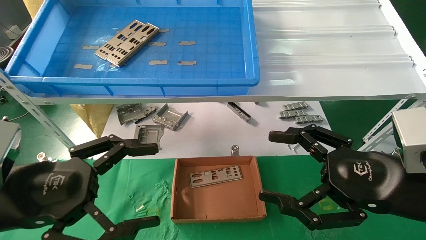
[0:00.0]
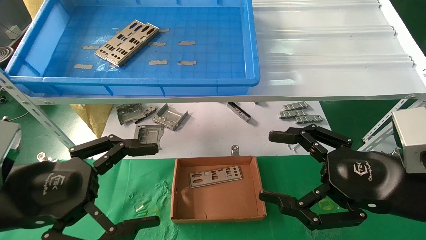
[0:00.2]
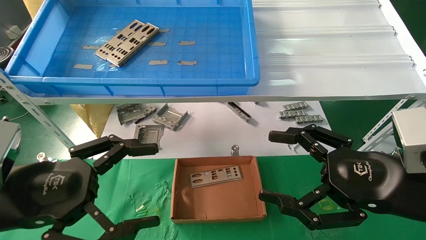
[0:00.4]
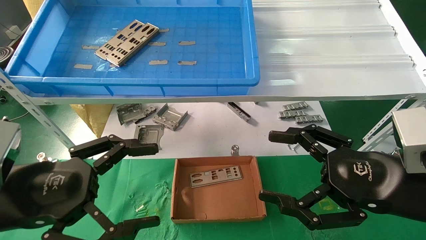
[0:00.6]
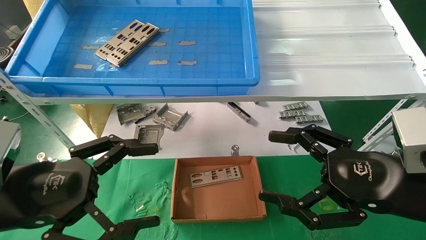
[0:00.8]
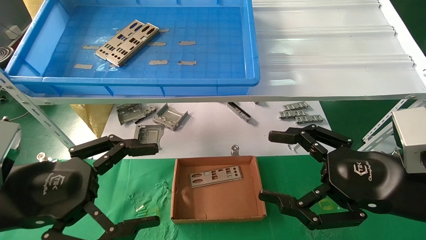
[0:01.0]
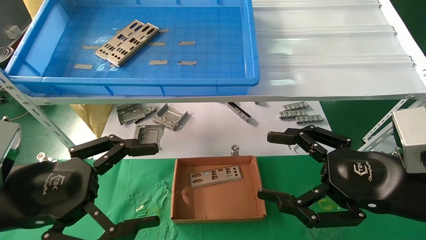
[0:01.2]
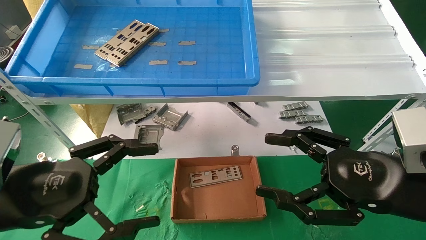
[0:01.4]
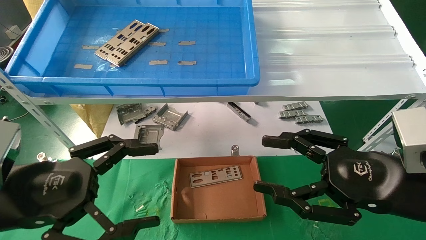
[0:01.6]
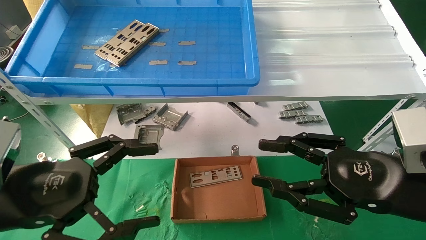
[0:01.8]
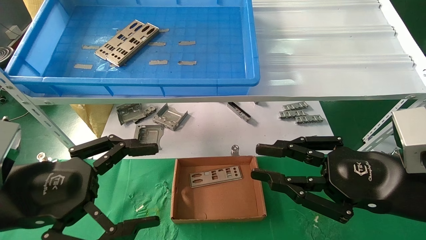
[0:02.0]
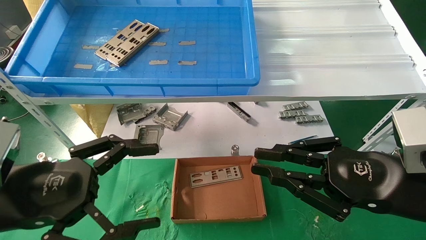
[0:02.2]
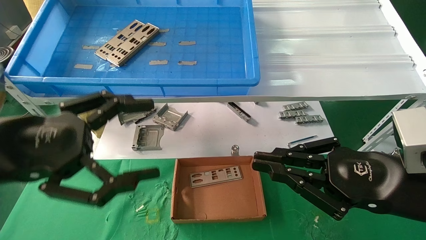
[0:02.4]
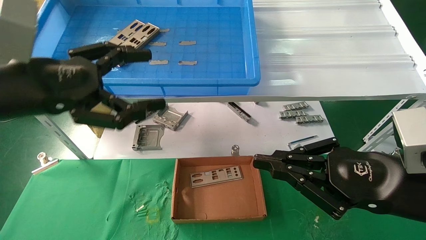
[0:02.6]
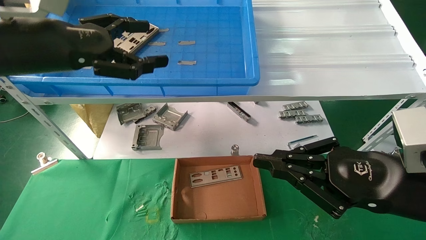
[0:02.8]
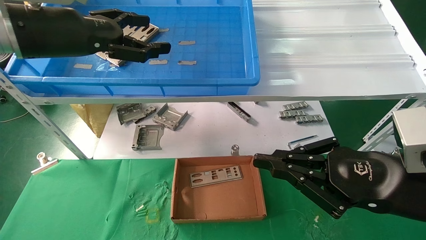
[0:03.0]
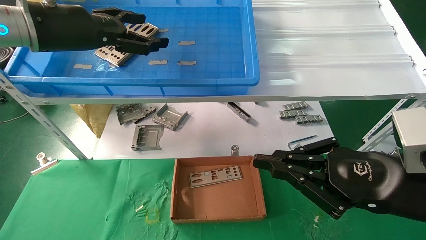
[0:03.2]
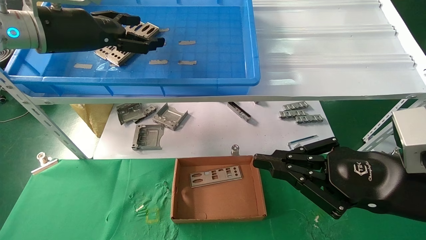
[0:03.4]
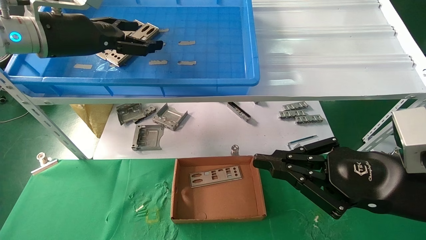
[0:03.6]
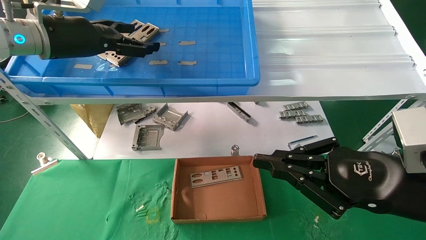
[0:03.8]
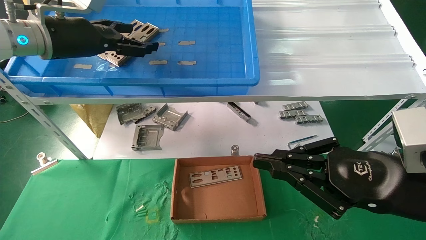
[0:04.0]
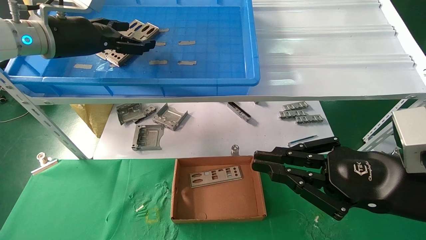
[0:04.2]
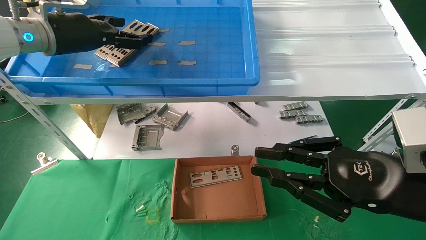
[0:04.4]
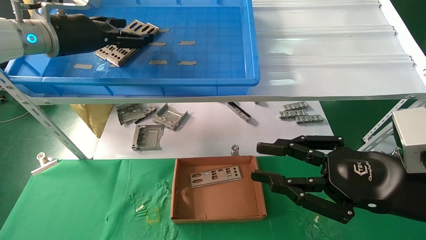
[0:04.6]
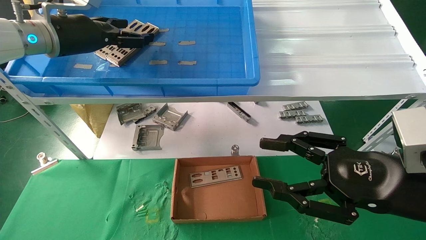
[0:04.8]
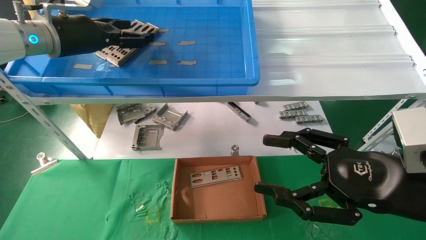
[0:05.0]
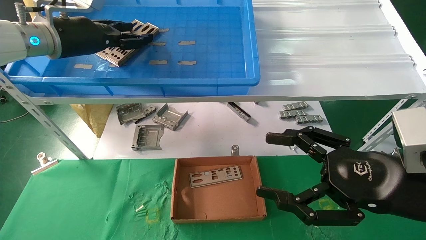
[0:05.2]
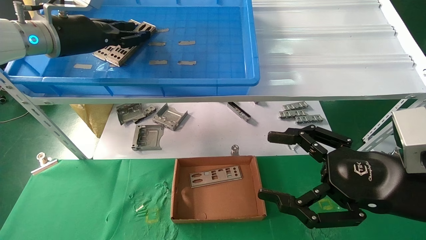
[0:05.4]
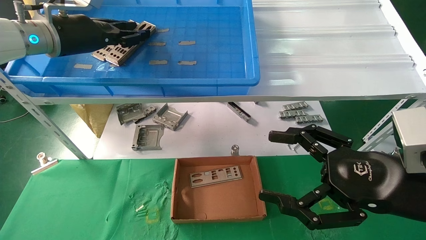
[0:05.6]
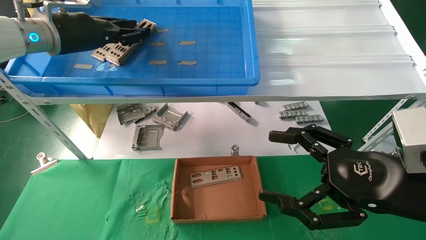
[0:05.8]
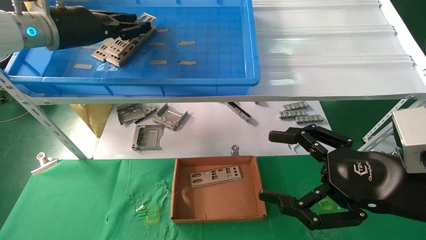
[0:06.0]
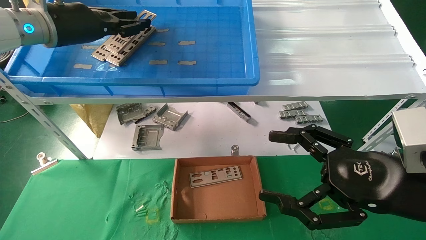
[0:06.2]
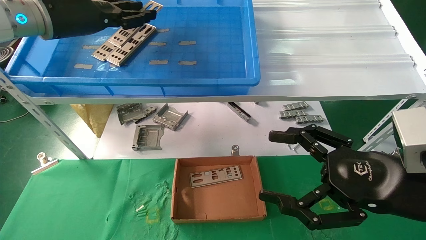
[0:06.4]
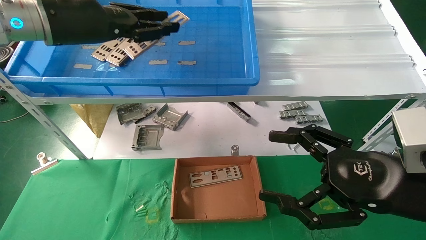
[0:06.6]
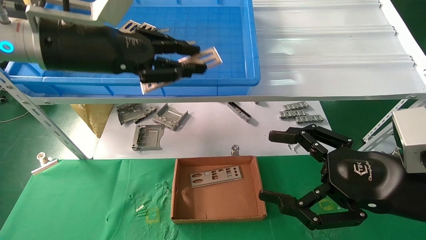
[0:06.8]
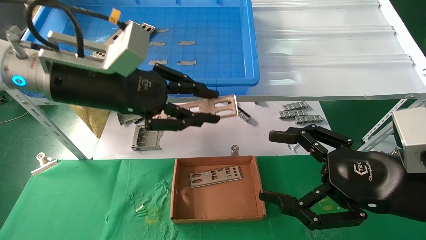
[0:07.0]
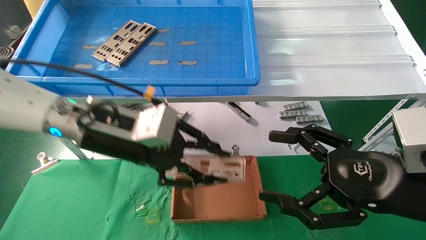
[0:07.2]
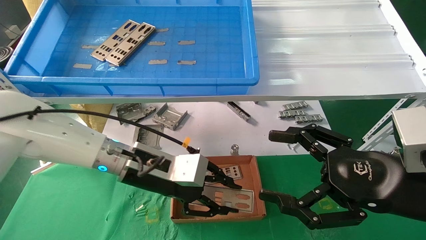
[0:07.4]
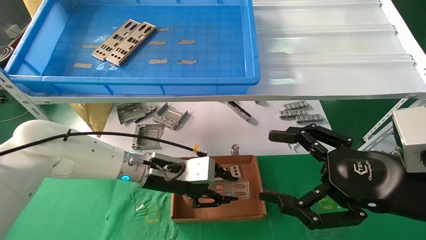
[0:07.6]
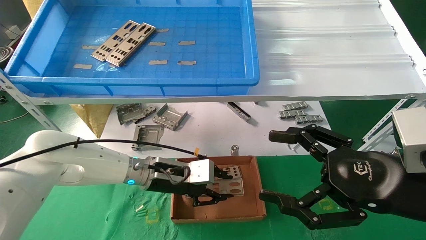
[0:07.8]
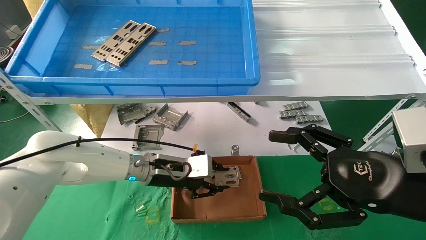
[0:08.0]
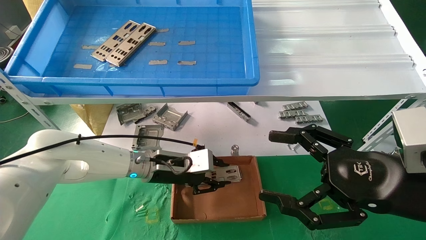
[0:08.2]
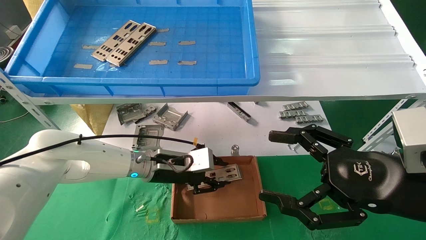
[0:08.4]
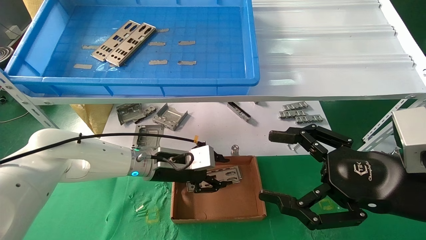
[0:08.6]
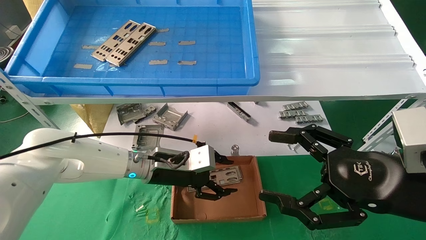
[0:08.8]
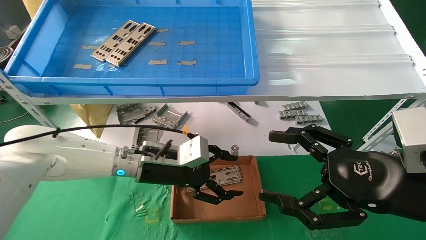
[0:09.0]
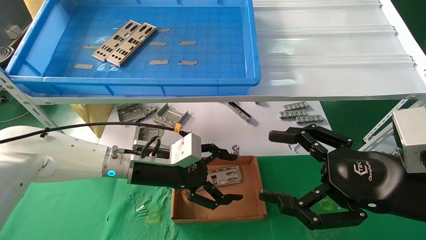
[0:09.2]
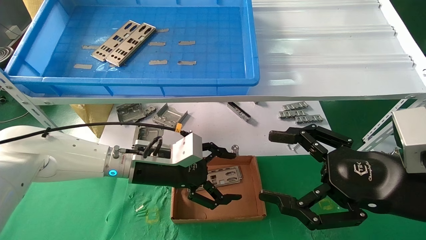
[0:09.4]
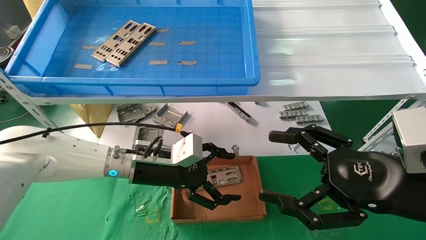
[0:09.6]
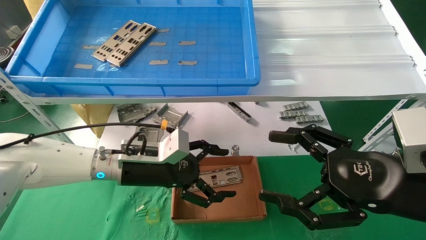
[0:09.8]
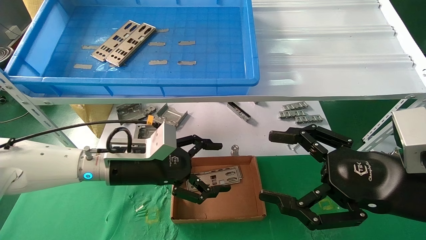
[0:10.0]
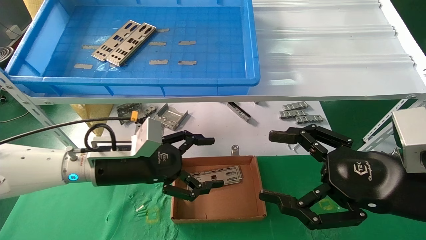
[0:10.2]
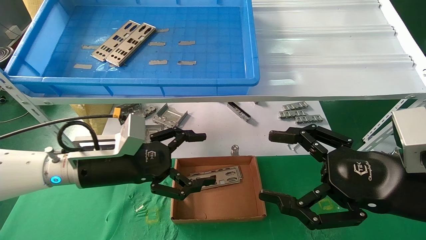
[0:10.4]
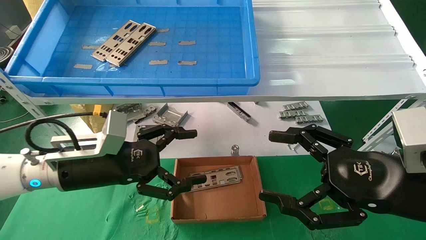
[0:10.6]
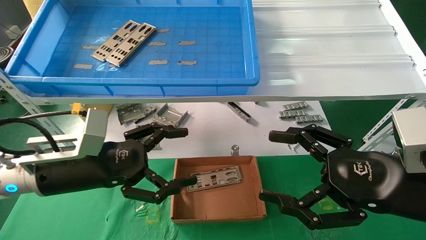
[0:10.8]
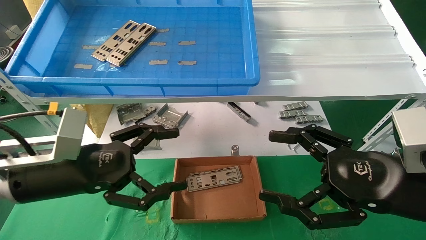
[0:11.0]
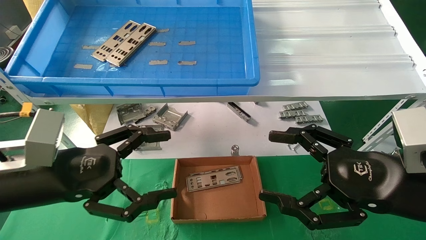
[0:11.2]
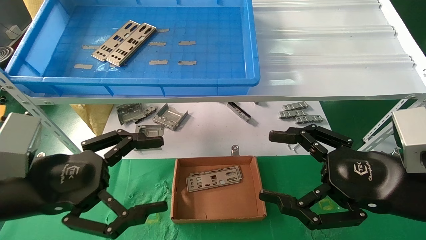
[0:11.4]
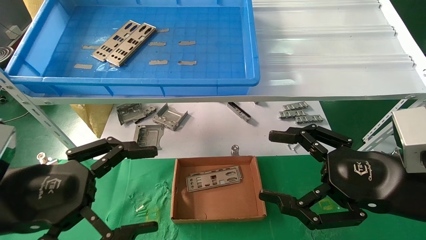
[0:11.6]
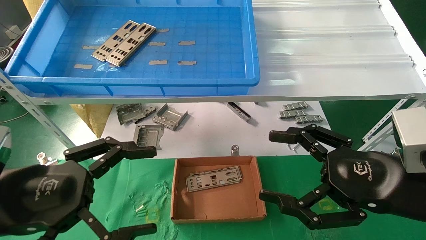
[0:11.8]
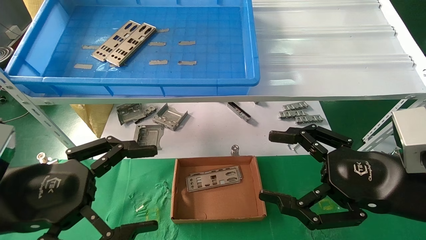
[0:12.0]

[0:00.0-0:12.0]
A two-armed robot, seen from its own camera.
Task of the whole recording: pick up the parts on the tray and put them in the cardboard box.
Step, 0:02.6 to 0:06.0: Pick up the IO bracket from the container box.
Step, 0:06.2 to 0:08.4: Place the IO bracket into the ingredient slot.
0:00.0 to 0:01.6: Neither gripper changes place.
0:01.6 to 0:03.0: The left gripper shifts about 25 cm upward and forward. Meanwhile the right gripper closes its fingers.
0:03.0 to 0:04.4: The left gripper is displaced forward by some 10 cm.
0:04.4 to 0:06.0: The left gripper closes its fingers, while the right gripper opens its fingers.
0:06.0 to 0:07.6: The left gripper heads downward and to the right, covering roughly 30 cm.
0:07.6 to 0:09.0: The left gripper opens.
0:09.0 to 0:10.4: The left gripper moves to the left and backward, roughly 10 cm, and opens up.
0:10.4 to 0:12.0: The left gripper is displaced backward and to the left by roughly 15 cm.

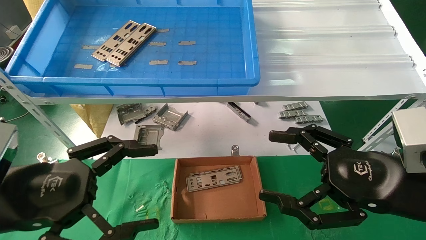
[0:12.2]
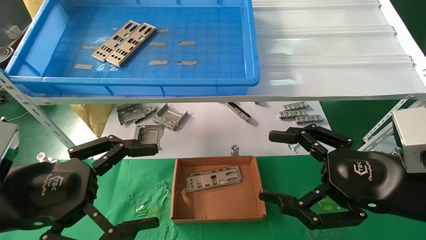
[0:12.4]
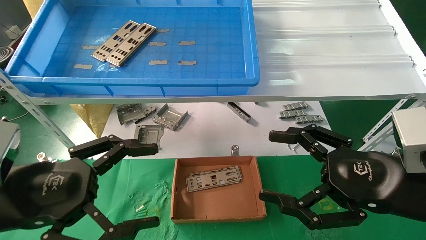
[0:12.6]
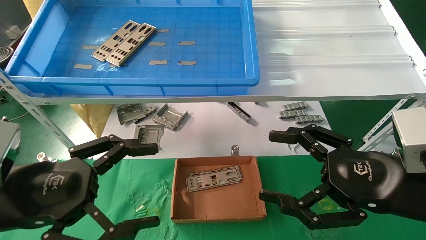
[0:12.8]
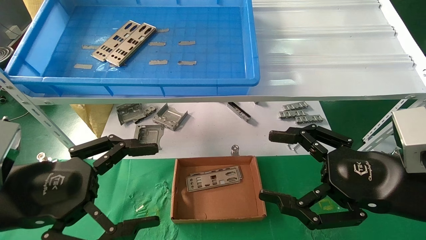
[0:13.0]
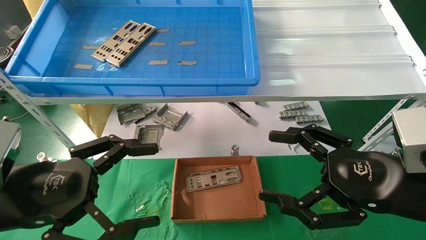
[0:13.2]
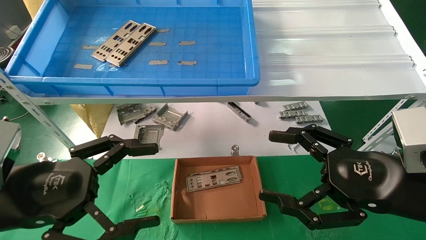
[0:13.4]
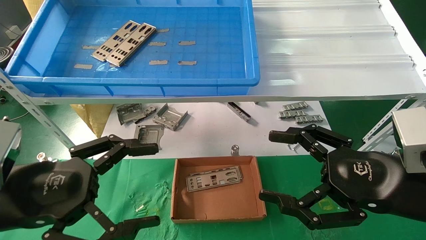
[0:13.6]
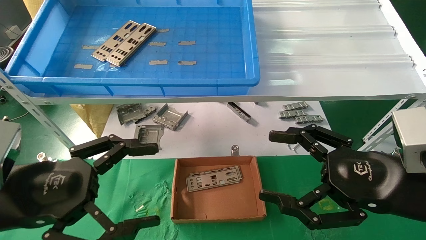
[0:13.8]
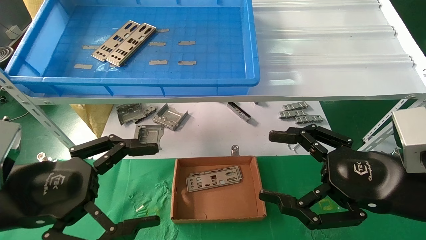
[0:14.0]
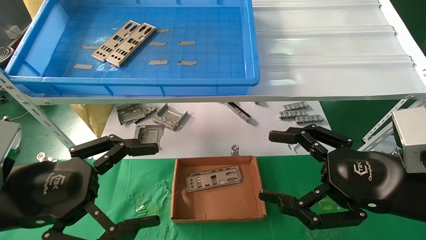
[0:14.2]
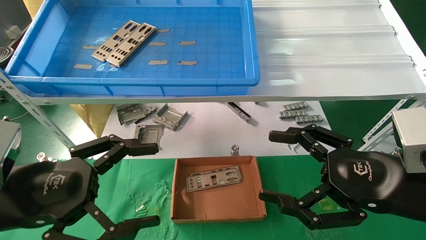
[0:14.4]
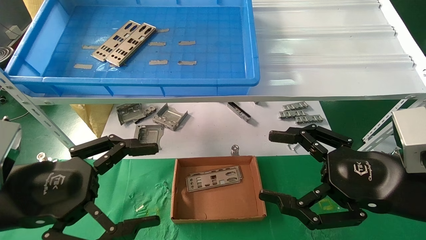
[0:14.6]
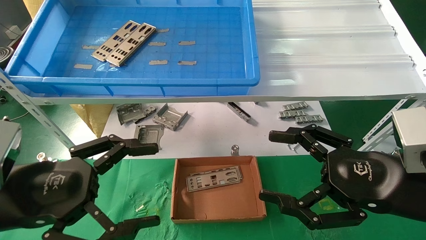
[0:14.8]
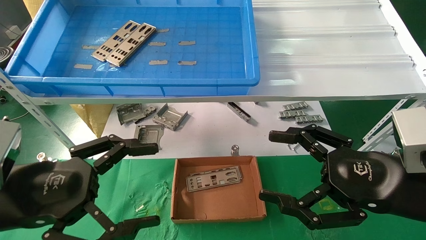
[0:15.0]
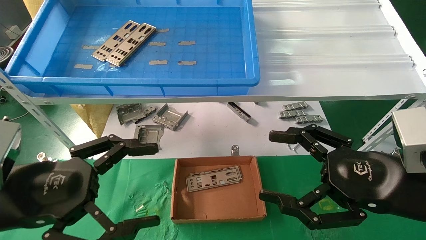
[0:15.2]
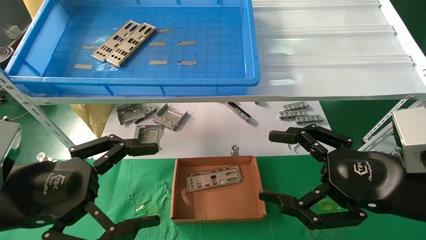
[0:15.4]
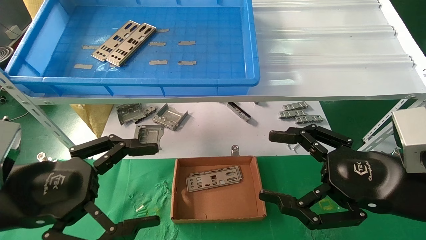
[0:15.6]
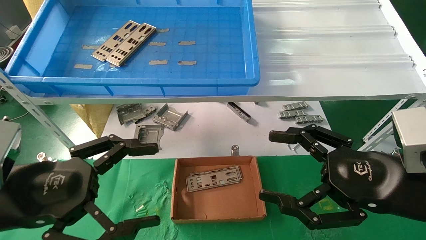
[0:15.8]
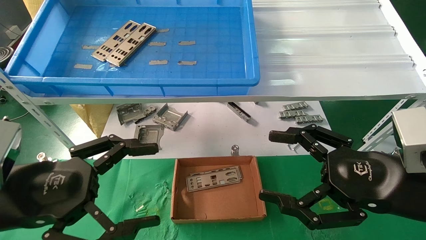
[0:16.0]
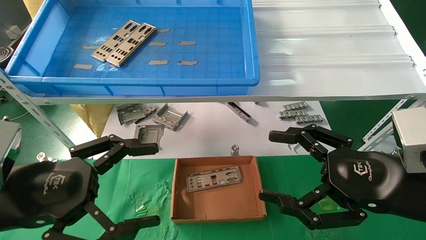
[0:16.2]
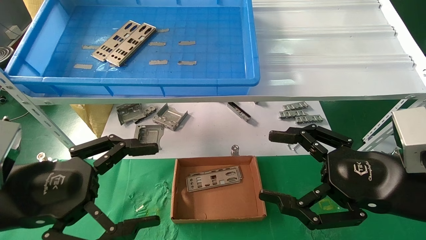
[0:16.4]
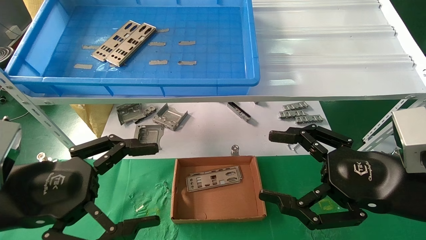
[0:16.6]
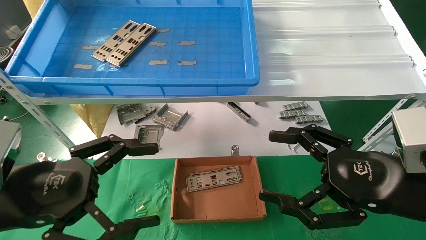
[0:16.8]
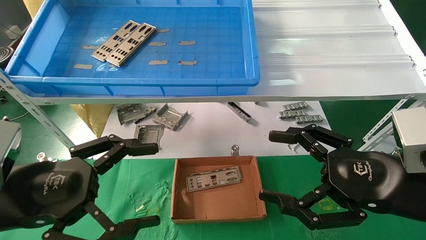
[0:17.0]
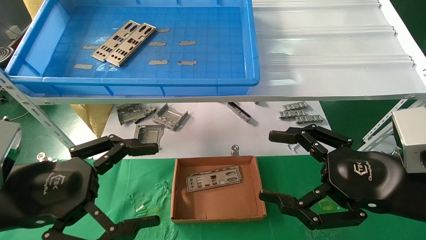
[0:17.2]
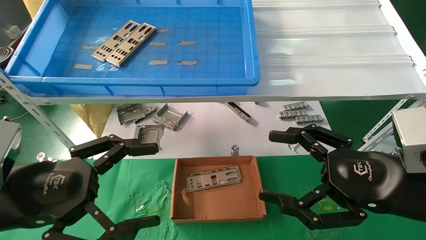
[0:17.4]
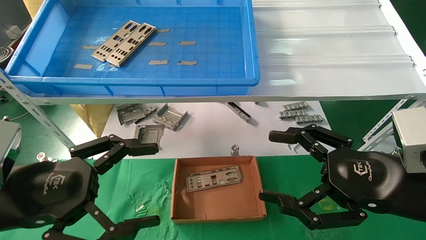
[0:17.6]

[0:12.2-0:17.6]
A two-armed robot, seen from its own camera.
Task of the whole recording: pick up the parts on the tray and put them in the cardboard box.
0:12.2 to 0:17.6: Both grippers stay put.
